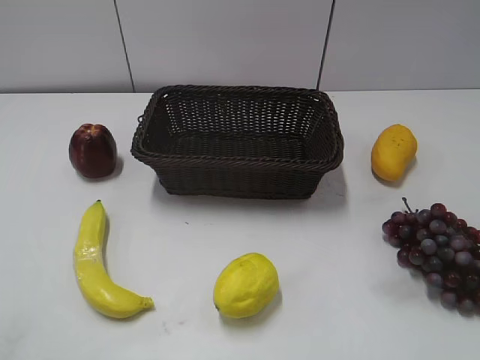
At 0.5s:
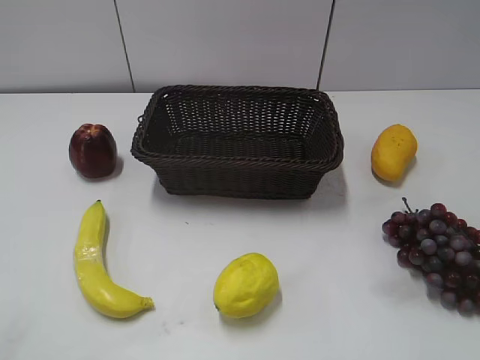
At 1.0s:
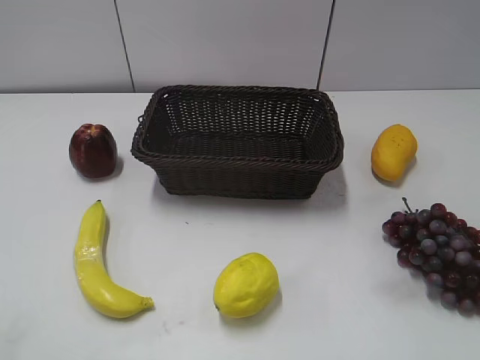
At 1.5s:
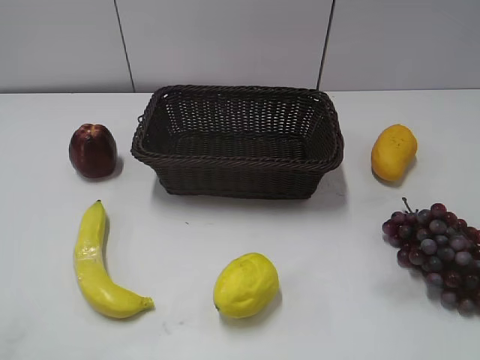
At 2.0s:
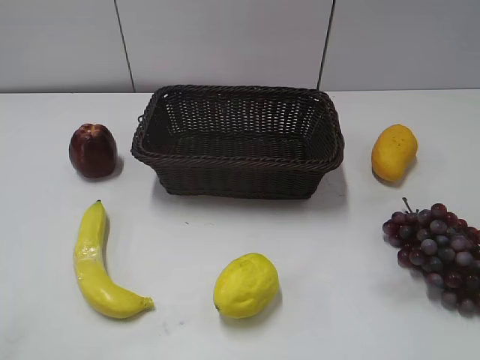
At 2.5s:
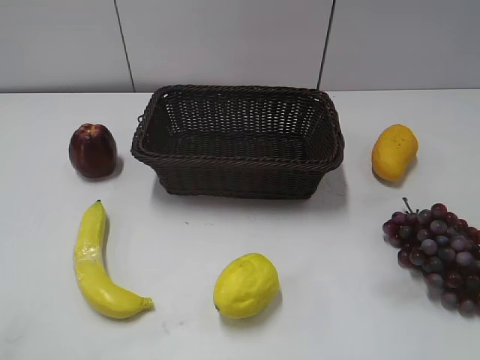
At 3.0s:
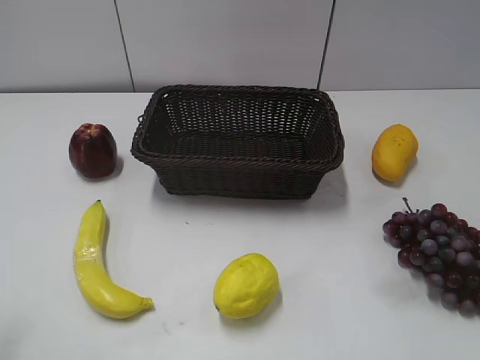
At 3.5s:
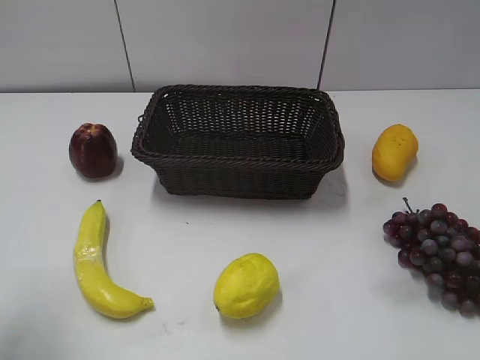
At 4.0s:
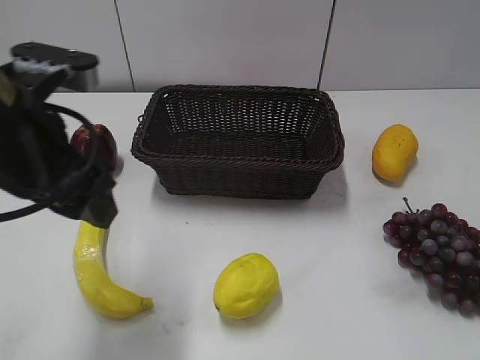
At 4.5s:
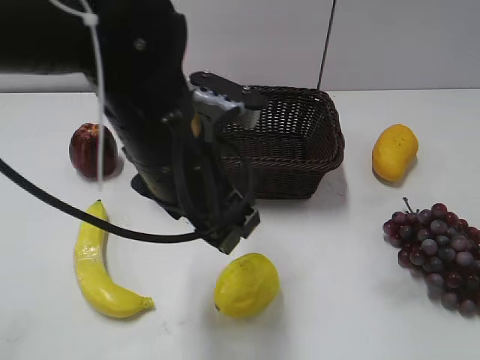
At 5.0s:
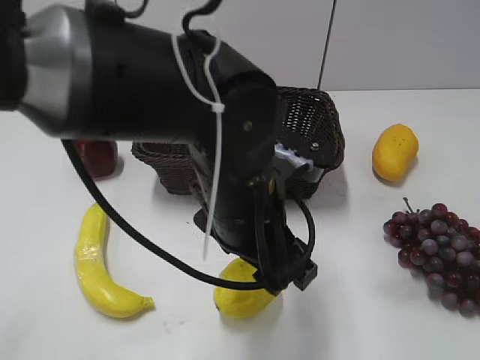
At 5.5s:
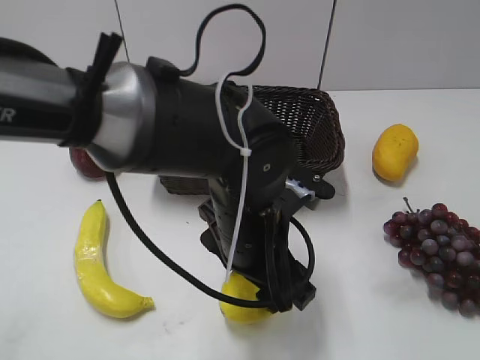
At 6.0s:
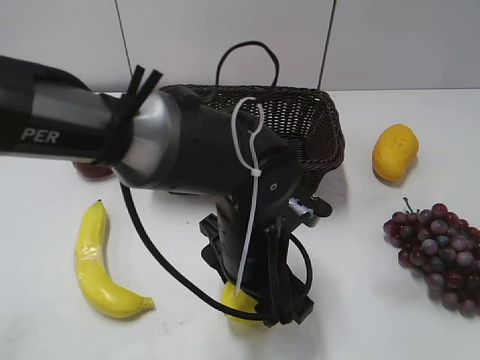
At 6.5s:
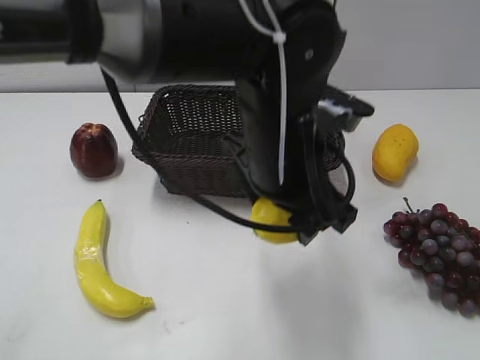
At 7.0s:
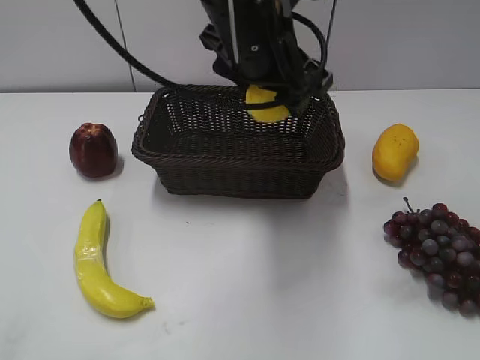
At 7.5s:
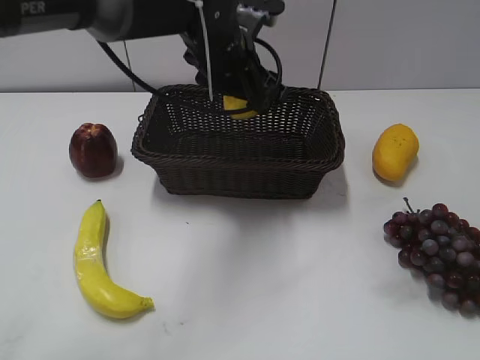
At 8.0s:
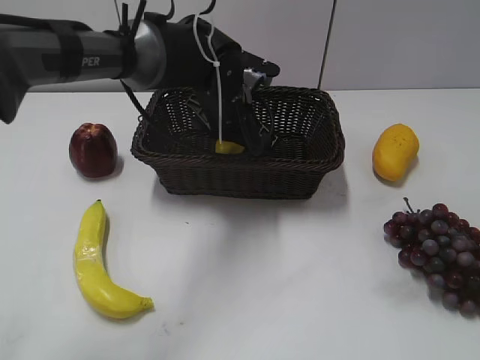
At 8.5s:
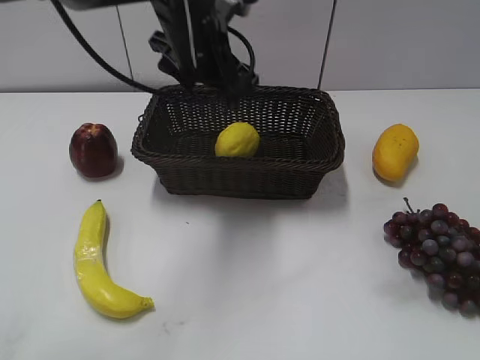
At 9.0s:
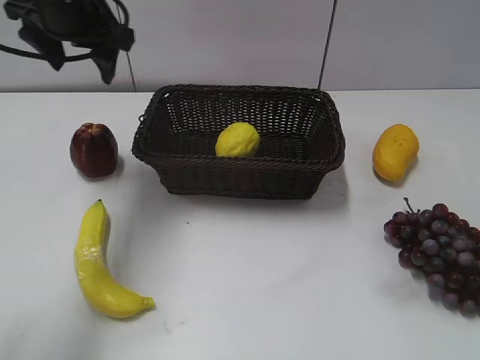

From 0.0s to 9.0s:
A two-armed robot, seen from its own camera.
Step, from 4.0s to 6.0s: Grasp the lemon with left gripper.
Step, from 6.5s to 8.0s: Place the lemon in the basket with left gripper.
From 2.0s to 4.5s: The left gripper is displaced to the right and forward by approximately 35 cm.
From 4.5s to 7.0s: The left gripper moves forward and to the right, some 10 cm, travels downward and back again, about 10 cm each way, and closes its fingers.
From 7.0s to 9.0s: The left gripper is displaced to the left and forward by roughly 20 cm, and opens and closes again.

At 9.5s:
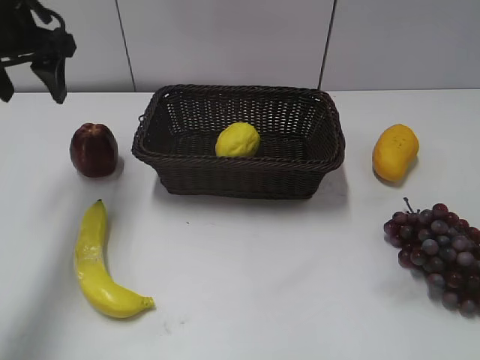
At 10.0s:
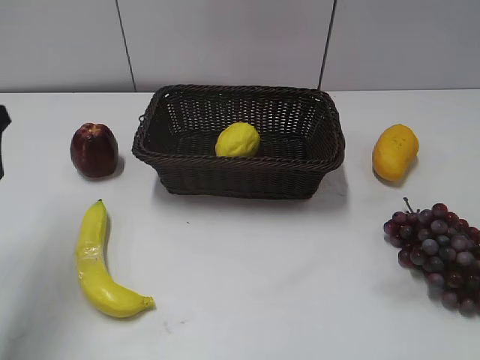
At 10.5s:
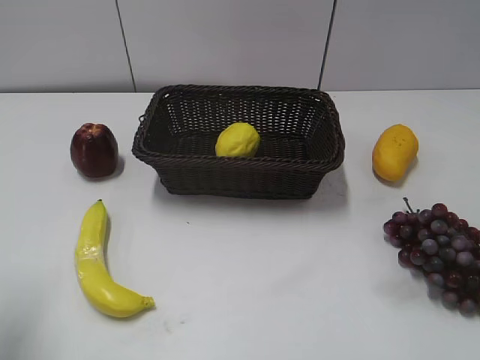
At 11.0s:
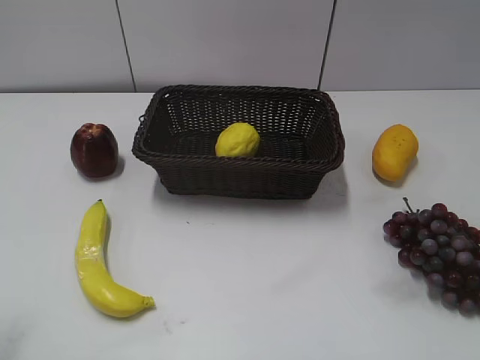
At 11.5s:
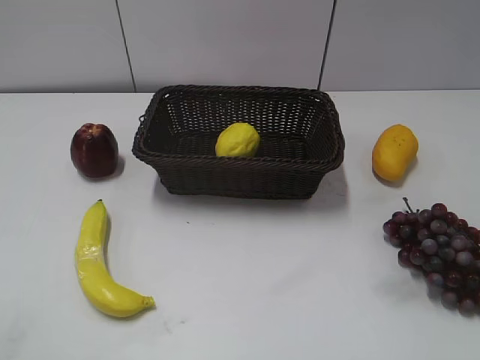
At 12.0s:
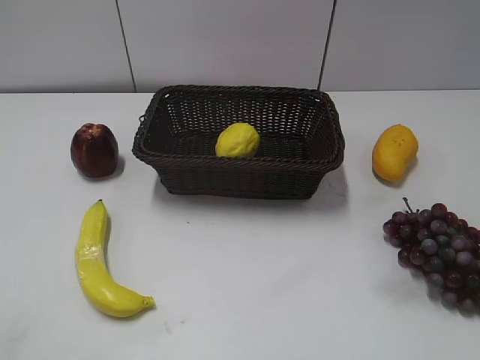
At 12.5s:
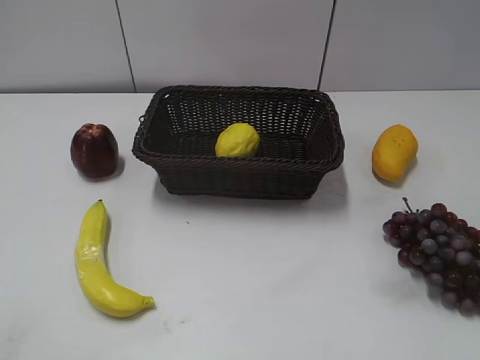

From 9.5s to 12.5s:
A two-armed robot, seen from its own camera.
From 9.5s to 11.0s: The left gripper moves backward, about 30 cm.

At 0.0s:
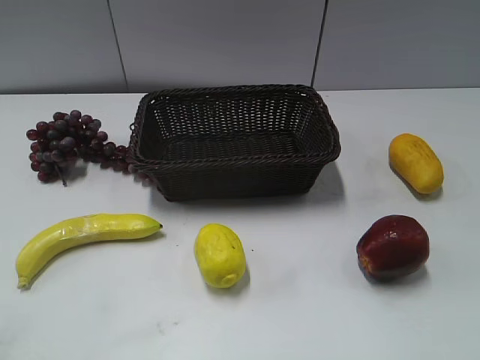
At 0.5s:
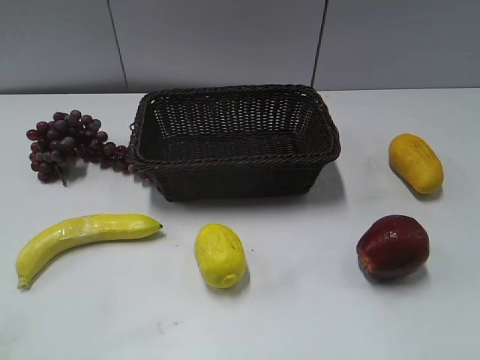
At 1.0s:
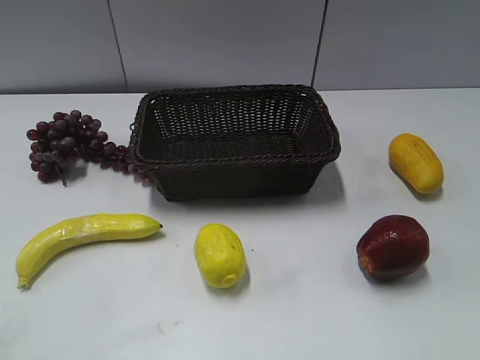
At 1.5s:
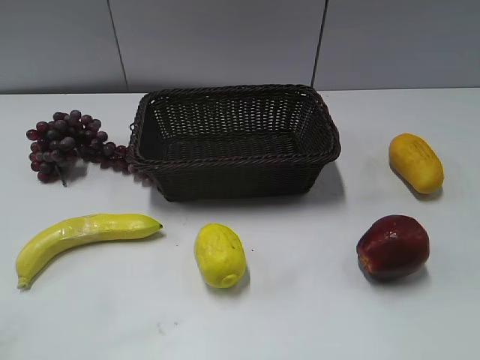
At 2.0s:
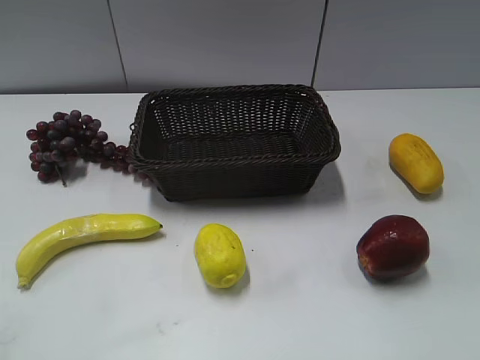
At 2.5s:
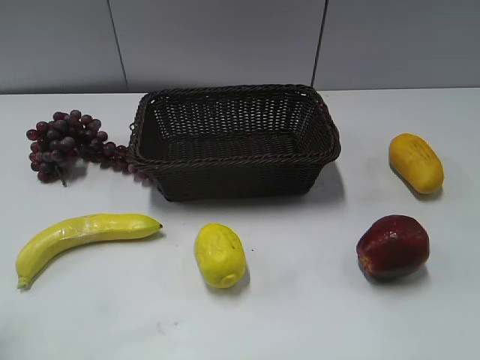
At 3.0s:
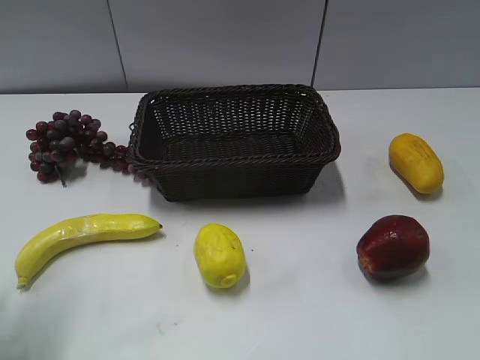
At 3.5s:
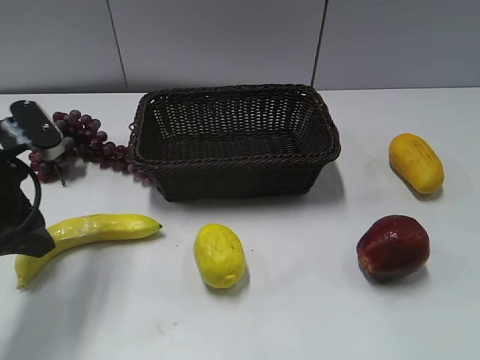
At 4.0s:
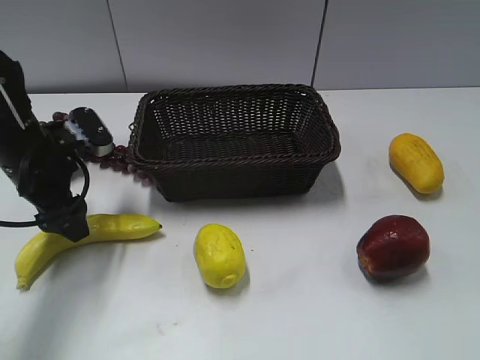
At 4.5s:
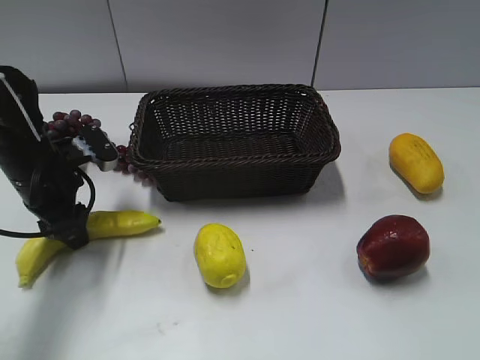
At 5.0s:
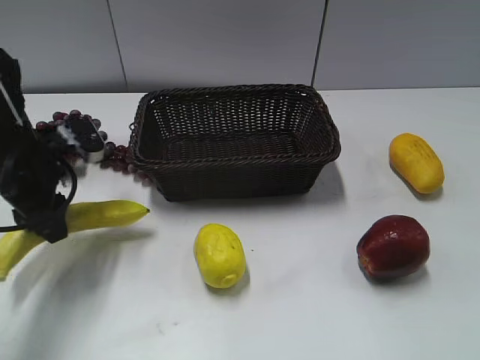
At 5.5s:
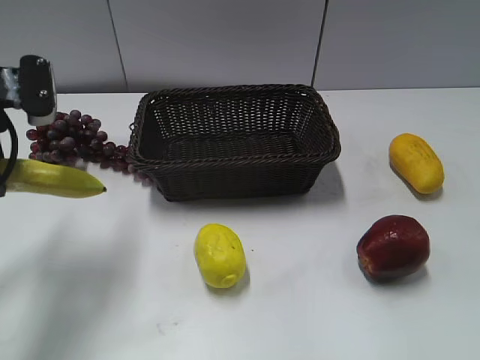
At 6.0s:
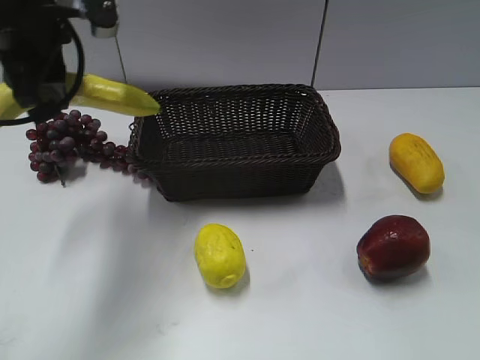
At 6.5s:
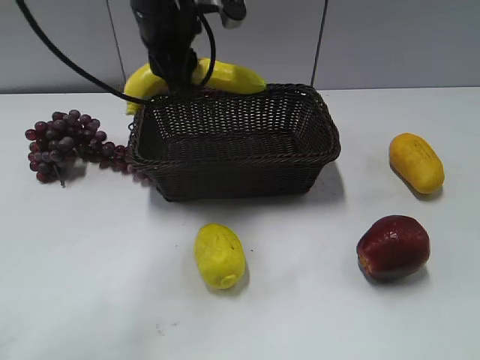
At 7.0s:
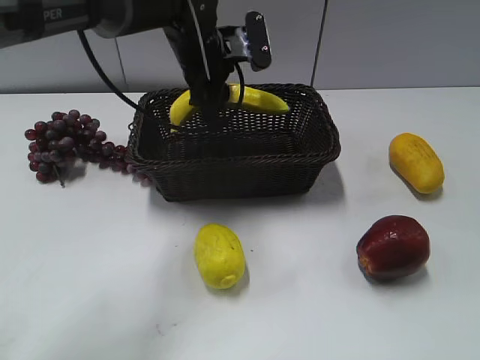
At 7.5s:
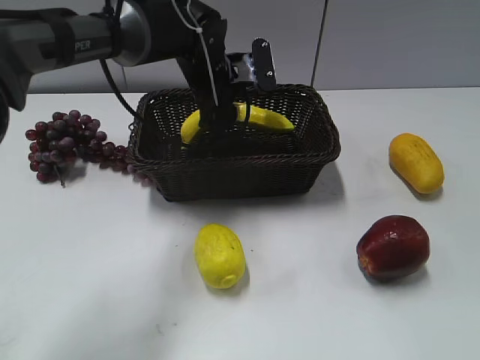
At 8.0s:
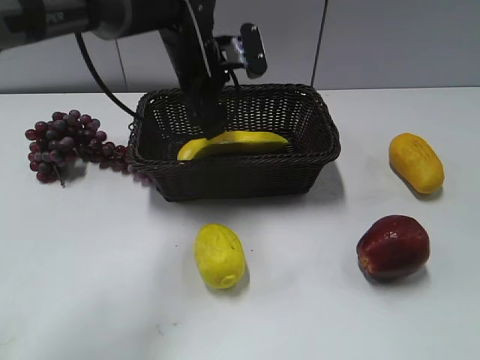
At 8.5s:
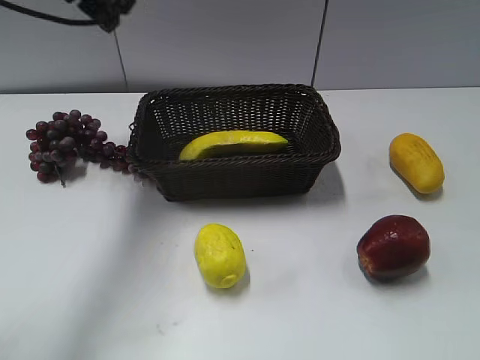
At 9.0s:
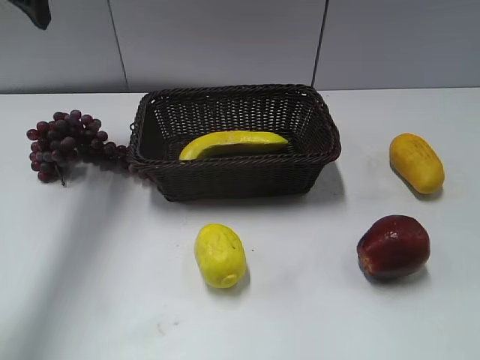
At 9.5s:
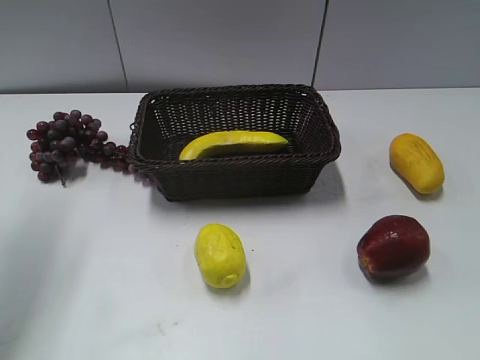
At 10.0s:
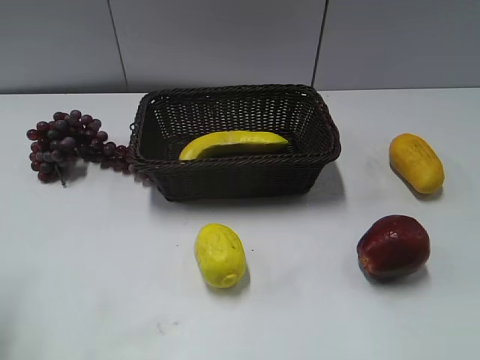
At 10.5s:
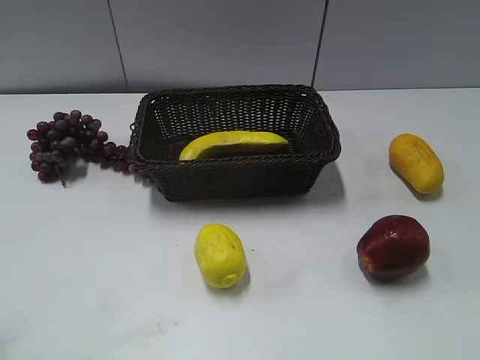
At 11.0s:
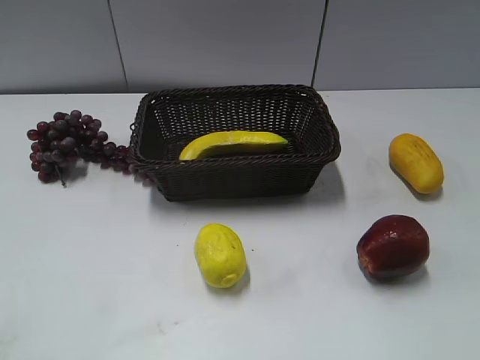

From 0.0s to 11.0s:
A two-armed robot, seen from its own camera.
Step, from 3.5s to 4.5s: Grasp the banana with left gripper.
Step, from 5.5s to 7.5s: Place the banana in the basket with left gripper.
From 2.0s to 3.5s: The left gripper moves forward and downward, approximately 25 cm.
From 3.5s to 5.5s: The left gripper is displaced upward by some 5 cm, and closes up.
From 5.5s to 7.5s: The left gripper moves to the right and forward, some 25 cm.
From 7.5s to 9.0s: The left gripper is displaced to the left and upward by approximately 30 cm, and opens its fingers.
From 9.0s to 11.0s: The left gripper is displaced backward by roughly 35 cm.
